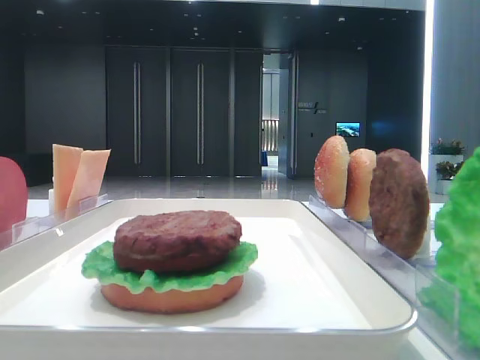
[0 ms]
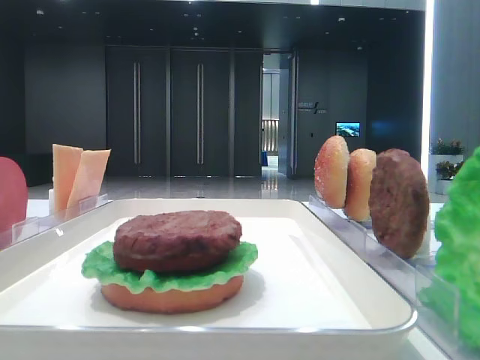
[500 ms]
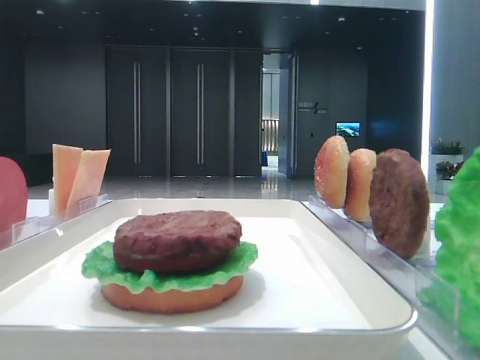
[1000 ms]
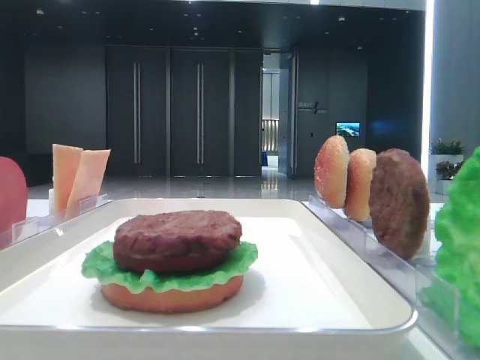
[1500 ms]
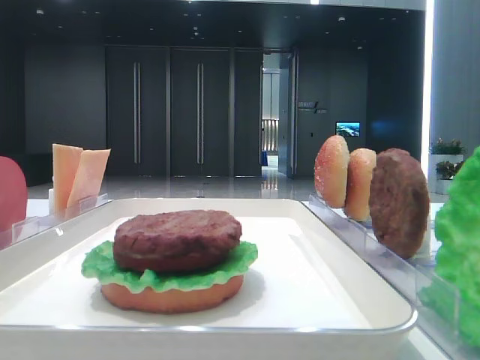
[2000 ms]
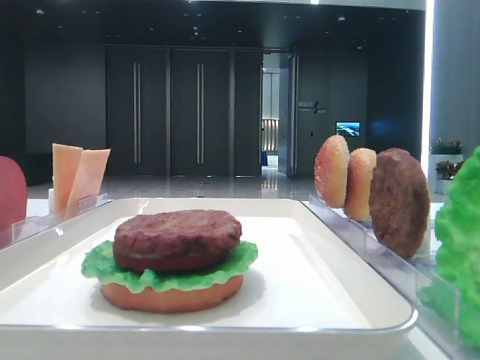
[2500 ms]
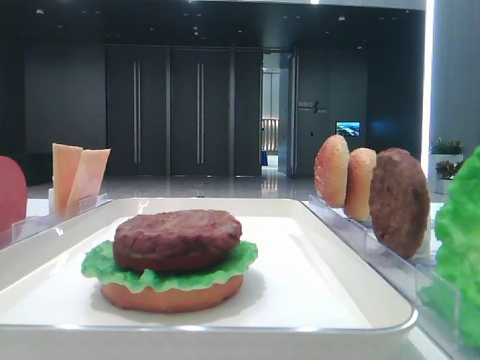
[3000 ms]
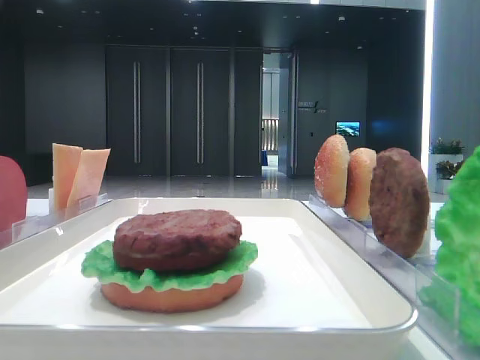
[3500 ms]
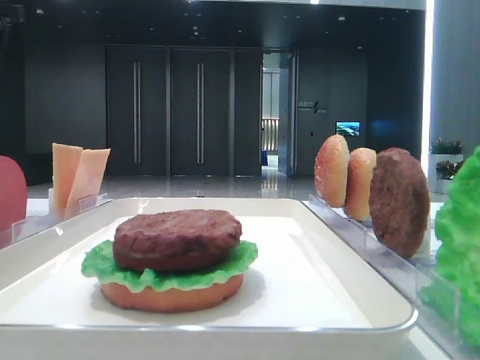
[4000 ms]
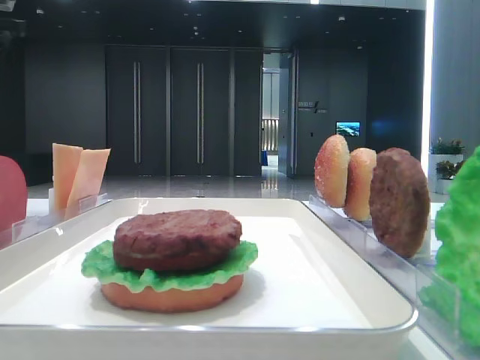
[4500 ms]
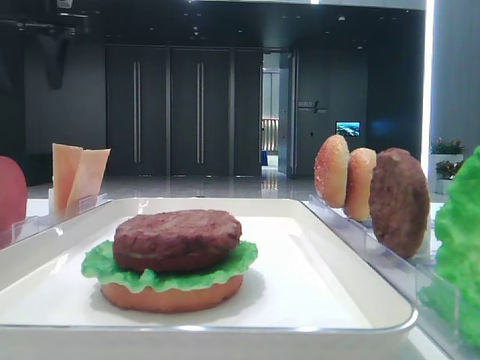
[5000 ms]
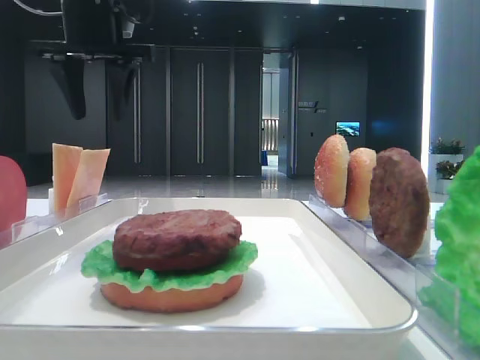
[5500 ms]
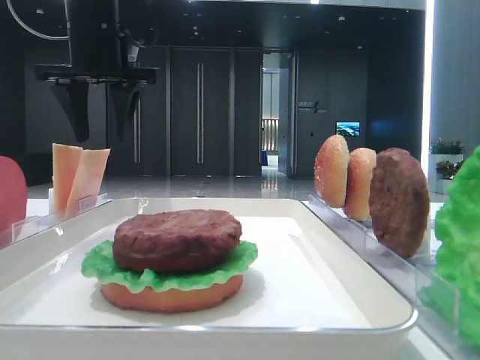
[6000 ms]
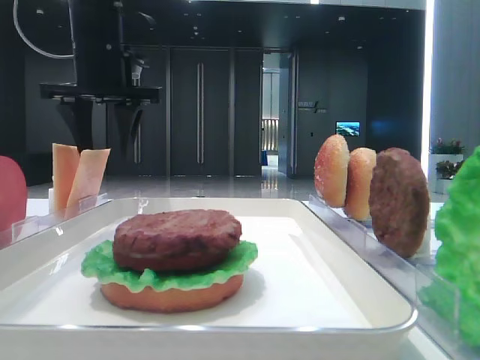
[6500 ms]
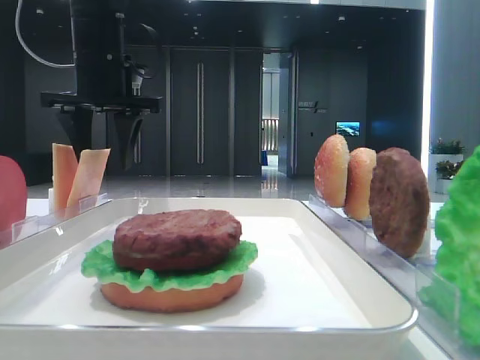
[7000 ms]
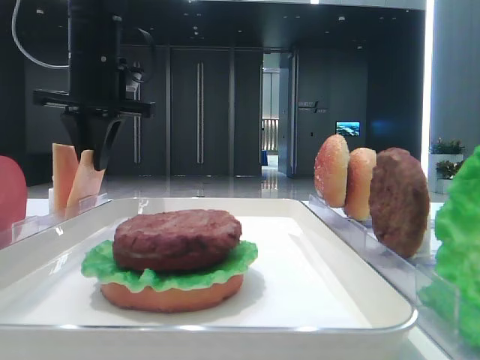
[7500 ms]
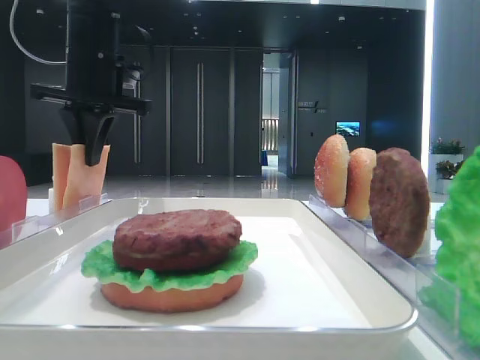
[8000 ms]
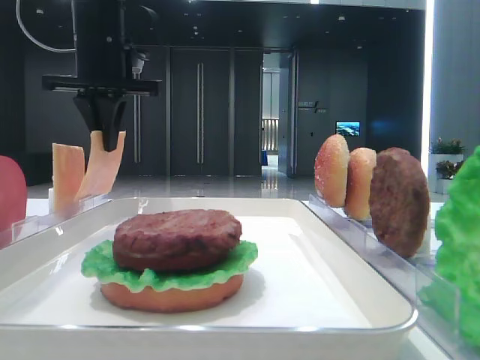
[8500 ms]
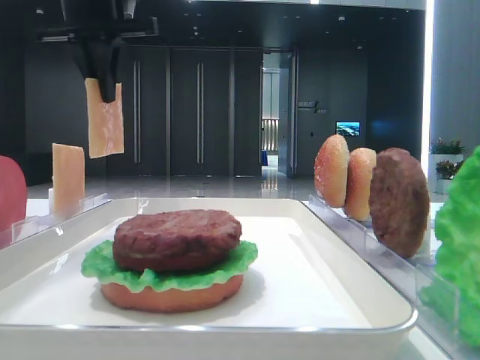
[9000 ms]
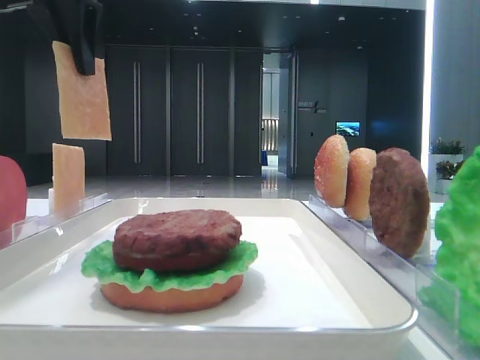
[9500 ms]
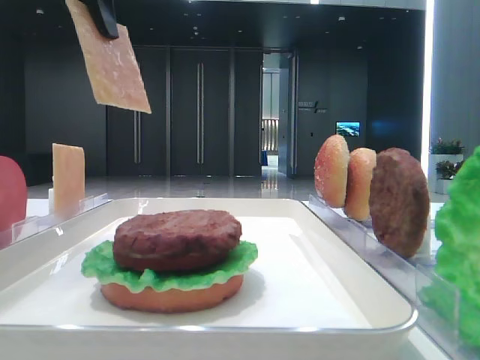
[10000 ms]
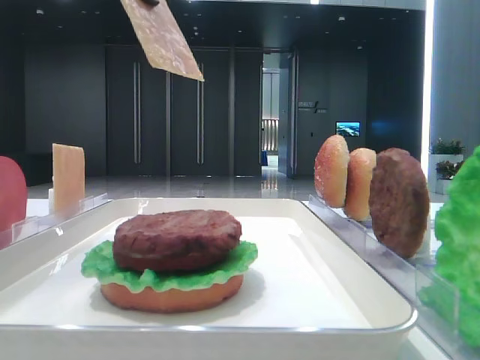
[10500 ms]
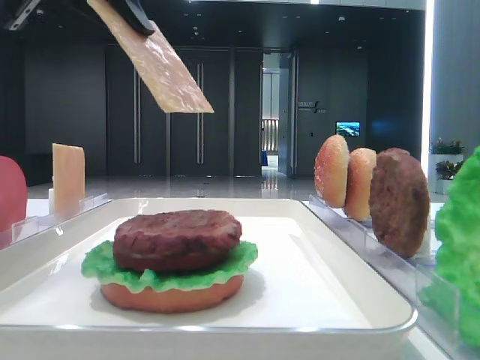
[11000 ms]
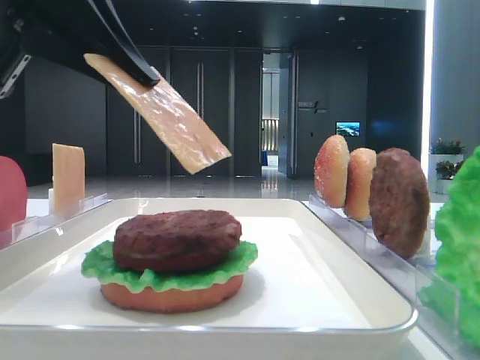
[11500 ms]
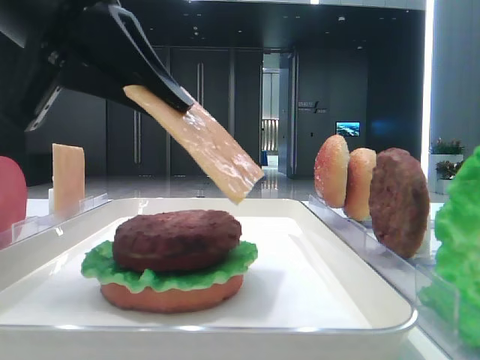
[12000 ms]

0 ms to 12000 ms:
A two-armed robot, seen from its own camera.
Step, 0 ms to 7500 ms: Pick up the cheese slice with the left hand.
4000 ms to 6000 ms: The left gripper heads to the right and downward, covering approximately 20 cm.
6000 ms to 8000 ms: The left gripper closes.
8000 ms to 10000 ms: The left gripper heads backward and upward, covering about 15 cm.
10000 ms to 12000 ms: The left gripper goes roughly 15 cm downward and backward.

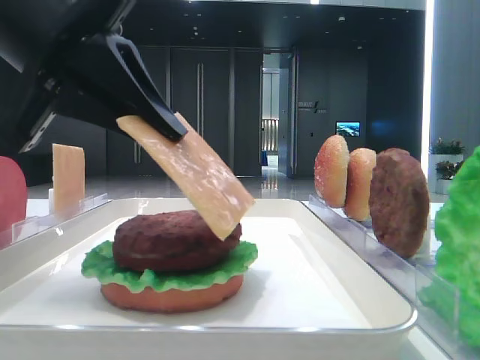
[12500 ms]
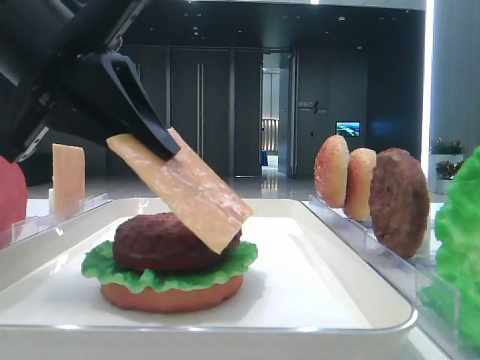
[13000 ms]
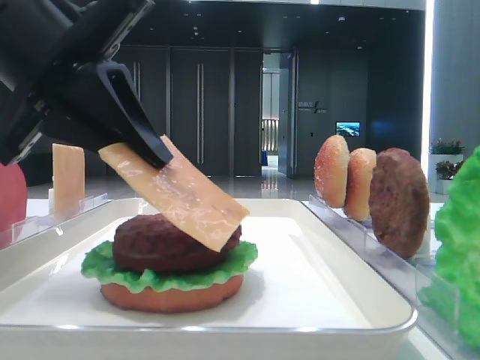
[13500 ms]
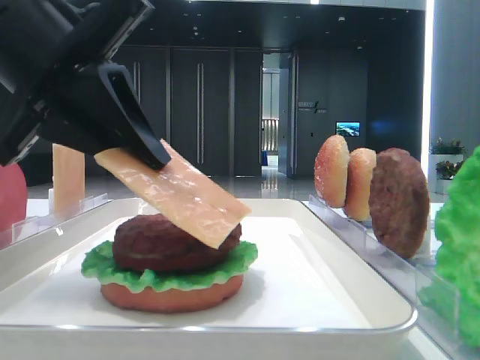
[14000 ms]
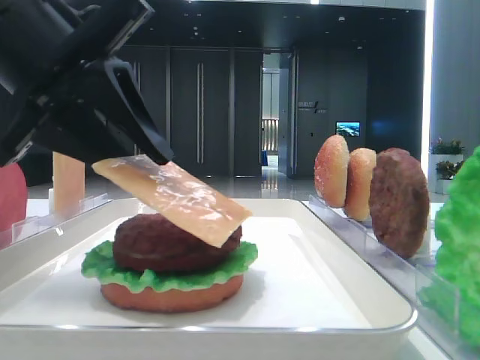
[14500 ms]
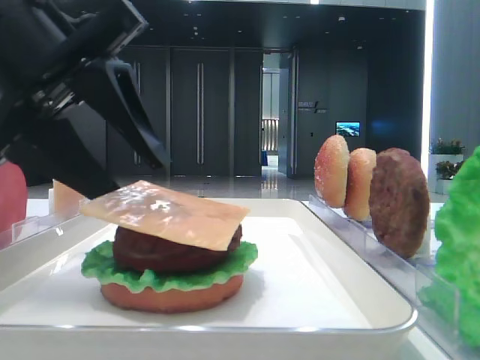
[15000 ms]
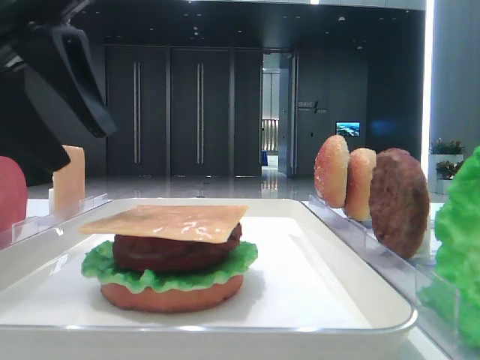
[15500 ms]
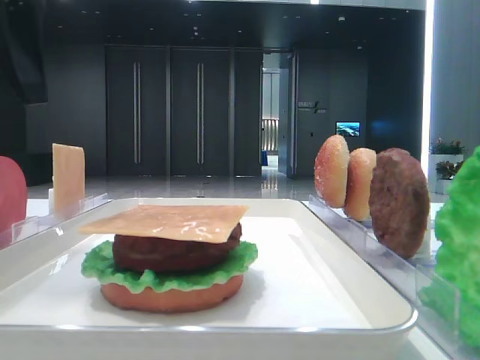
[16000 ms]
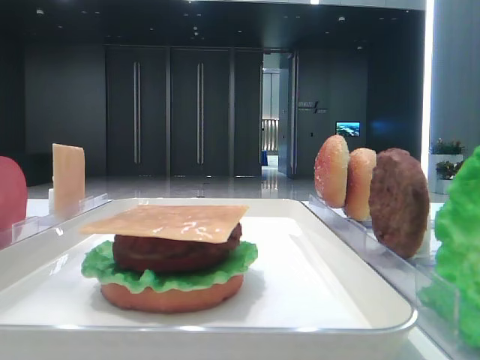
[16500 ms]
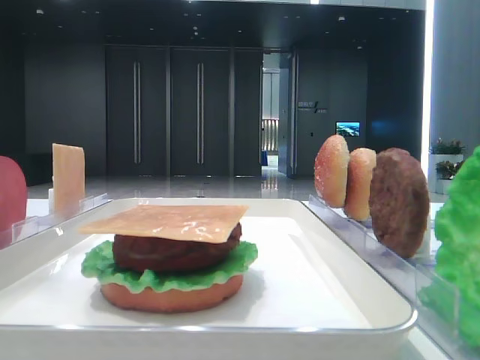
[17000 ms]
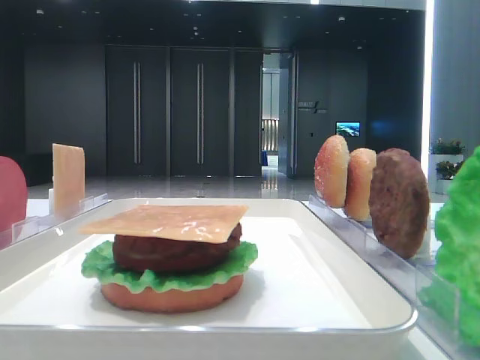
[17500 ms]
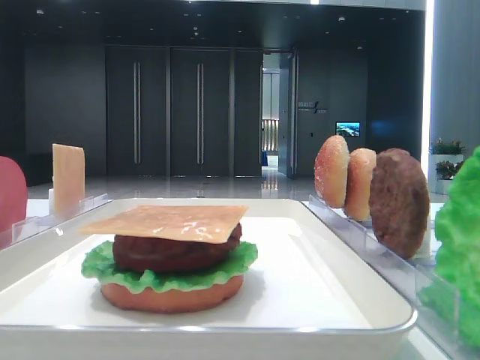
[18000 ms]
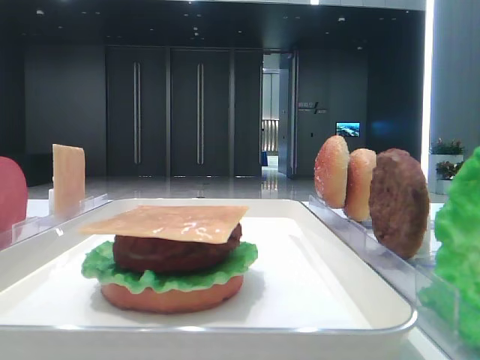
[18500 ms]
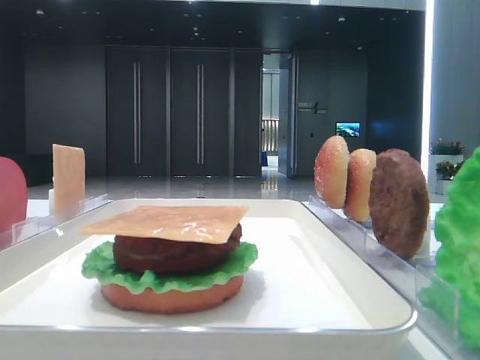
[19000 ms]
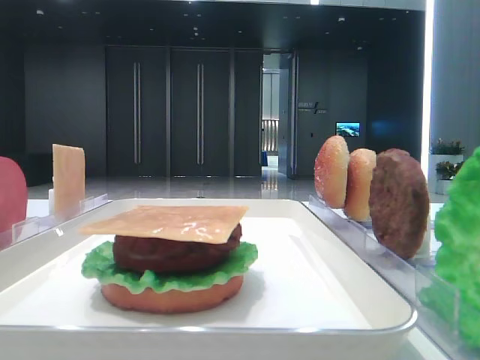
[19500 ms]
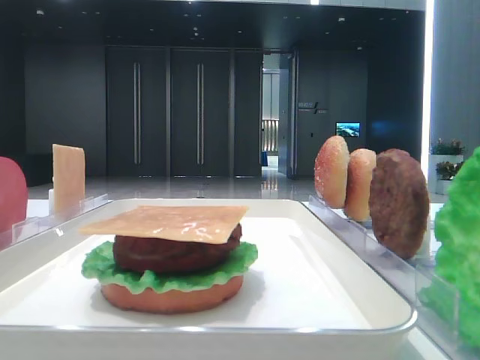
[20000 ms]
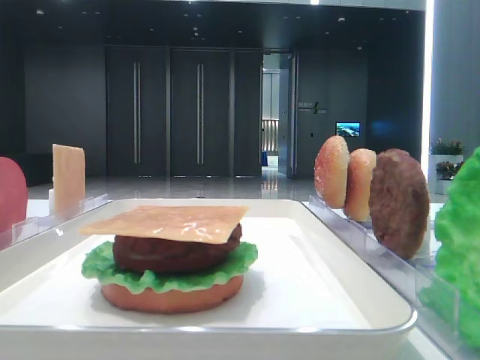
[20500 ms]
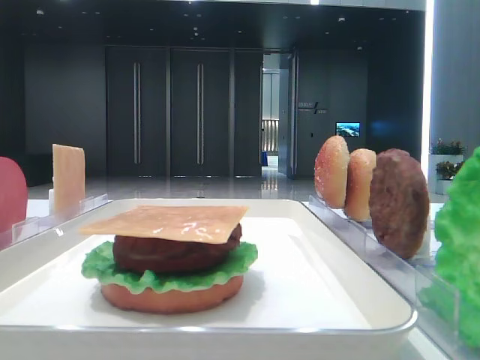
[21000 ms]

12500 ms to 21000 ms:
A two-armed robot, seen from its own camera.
12500 ms to 14500 ms: The grippers make only small movements.
14500 ms to 16500 ms: The left gripper is displaced upward and to the left by roughly 15 cm, and opens.
16500 ms to 19000 ms: The left gripper shifts approximately 25 cm backward.

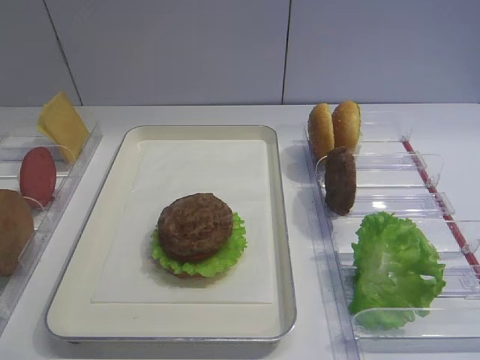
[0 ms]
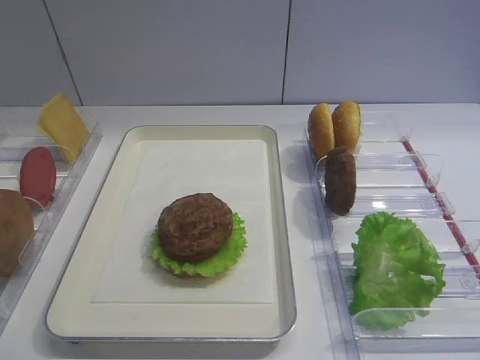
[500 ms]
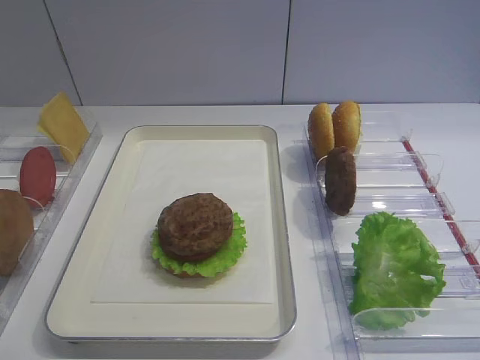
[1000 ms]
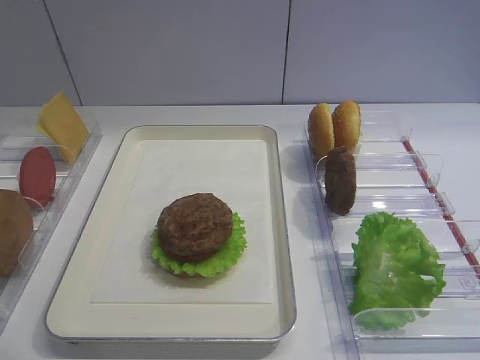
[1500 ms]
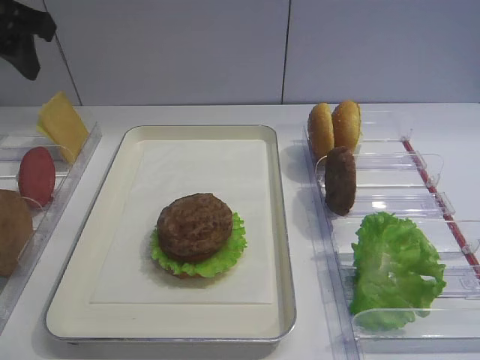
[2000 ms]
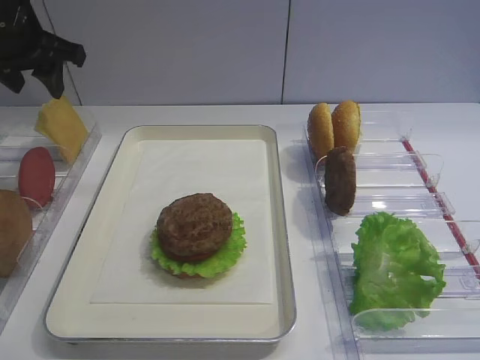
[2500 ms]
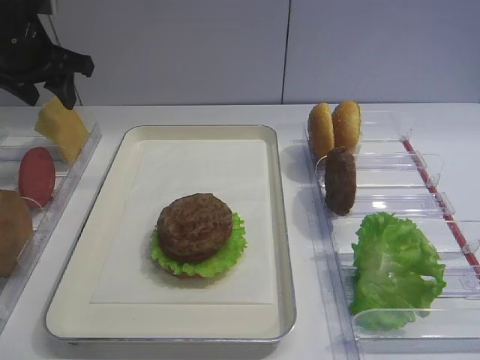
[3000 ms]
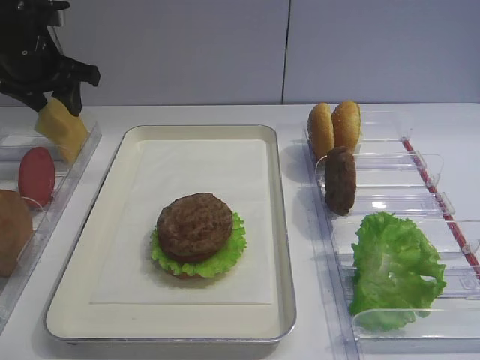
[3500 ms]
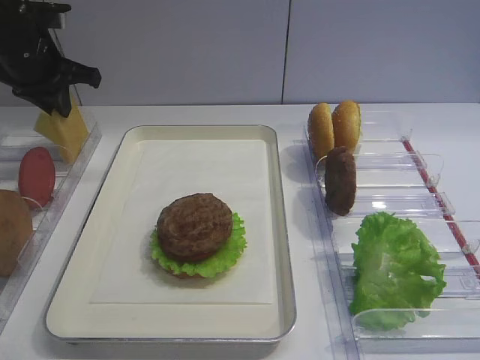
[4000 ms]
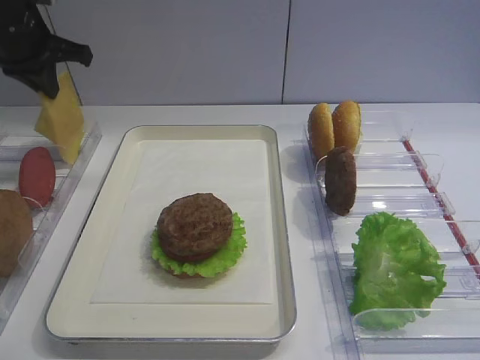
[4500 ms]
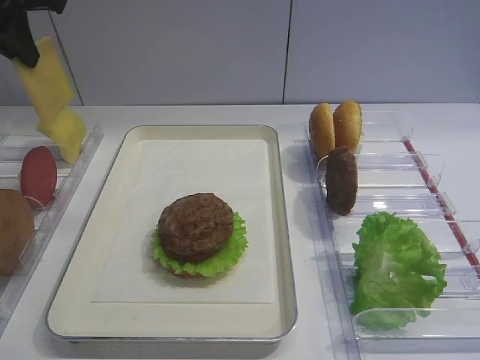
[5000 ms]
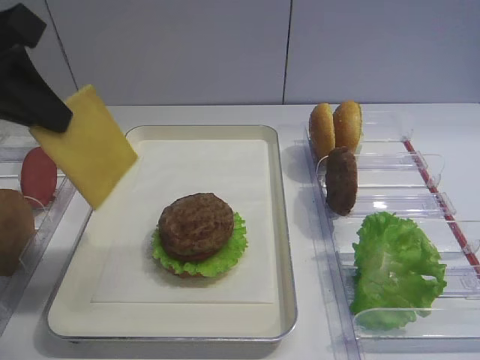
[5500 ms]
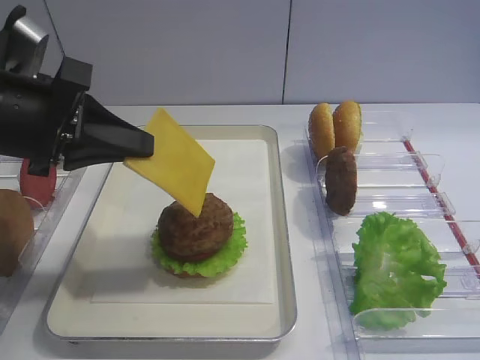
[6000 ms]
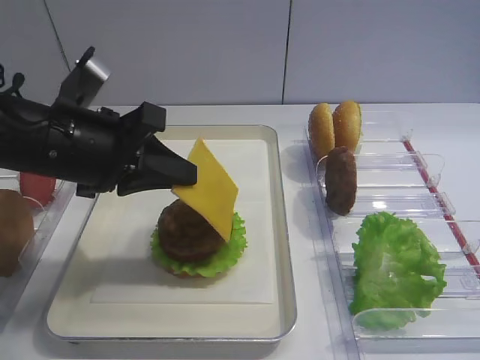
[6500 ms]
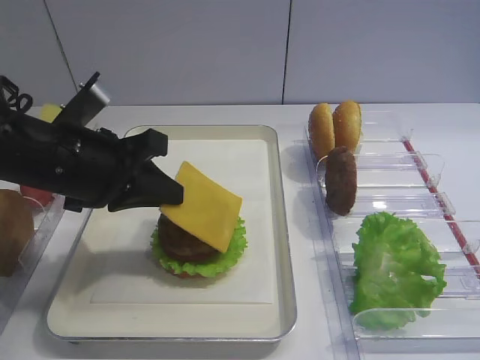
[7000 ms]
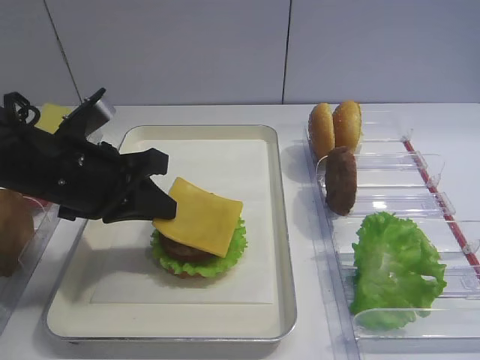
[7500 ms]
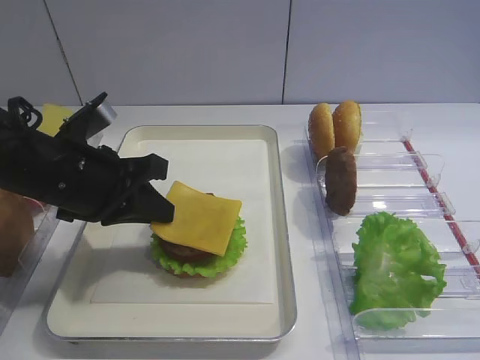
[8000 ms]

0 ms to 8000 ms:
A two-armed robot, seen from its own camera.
Step, 0 ms to 4500 ms: Pick up the cheese slice with the left gripper.
2000 ms to 4000 ms: The left gripper moves forward and downward, approximately 15 cm, and closes up.
4000 ms to 6000 ms: The left gripper travels backward by some 20 cm.
6000 ms to 8000 ms: The left gripper heads downward, covering approximately 5 cm.
